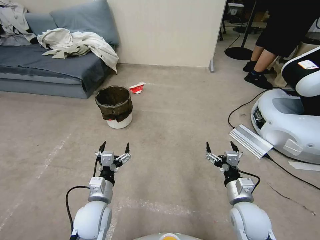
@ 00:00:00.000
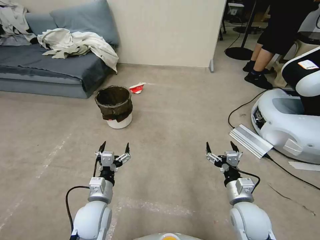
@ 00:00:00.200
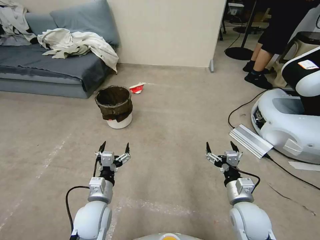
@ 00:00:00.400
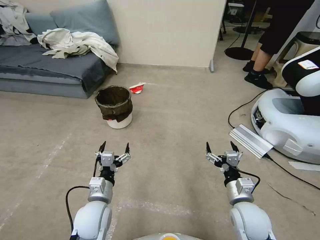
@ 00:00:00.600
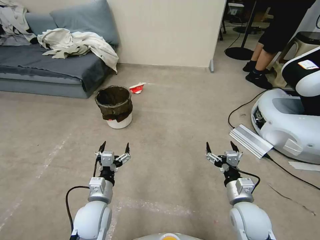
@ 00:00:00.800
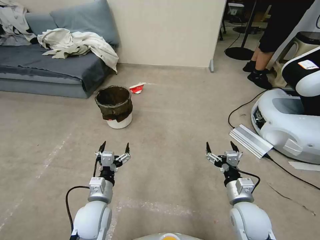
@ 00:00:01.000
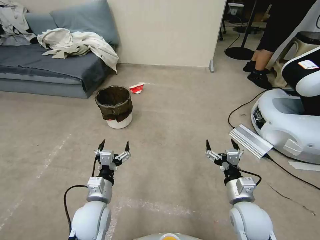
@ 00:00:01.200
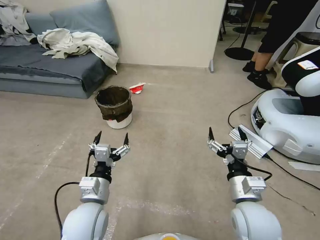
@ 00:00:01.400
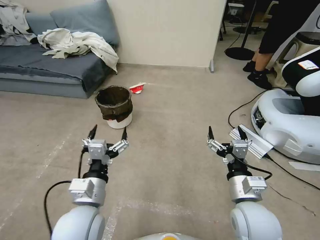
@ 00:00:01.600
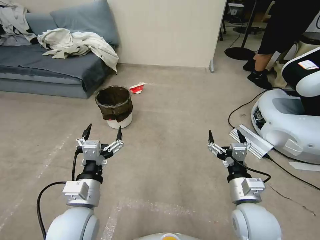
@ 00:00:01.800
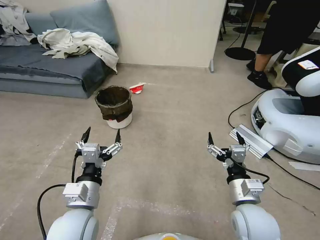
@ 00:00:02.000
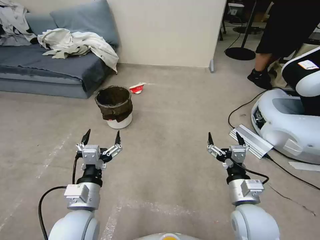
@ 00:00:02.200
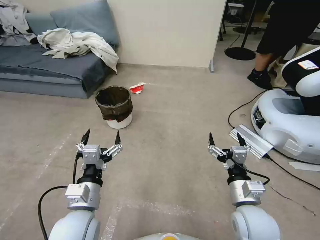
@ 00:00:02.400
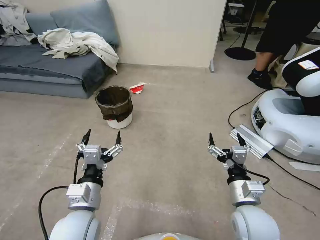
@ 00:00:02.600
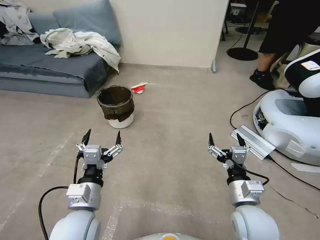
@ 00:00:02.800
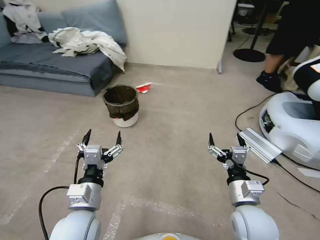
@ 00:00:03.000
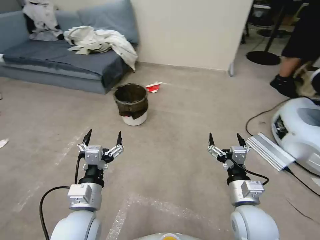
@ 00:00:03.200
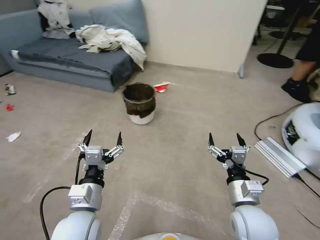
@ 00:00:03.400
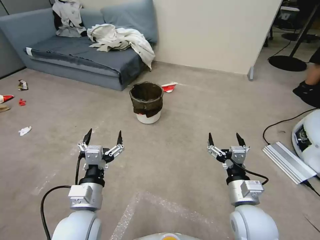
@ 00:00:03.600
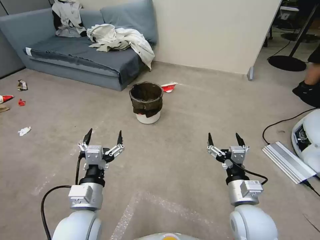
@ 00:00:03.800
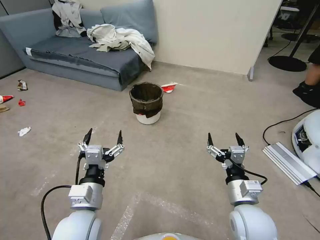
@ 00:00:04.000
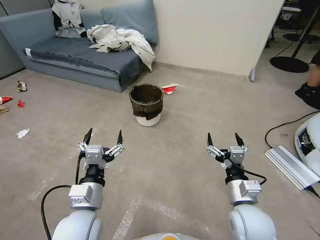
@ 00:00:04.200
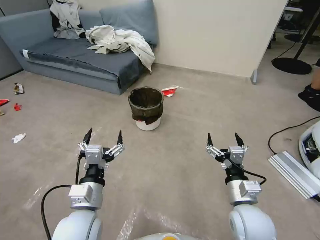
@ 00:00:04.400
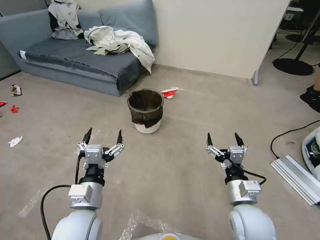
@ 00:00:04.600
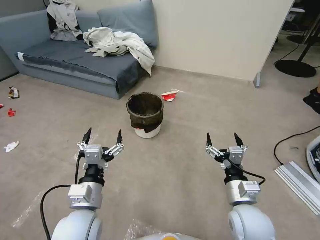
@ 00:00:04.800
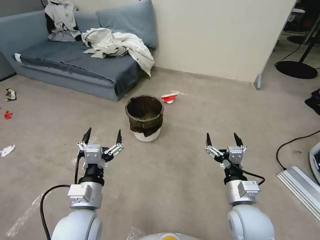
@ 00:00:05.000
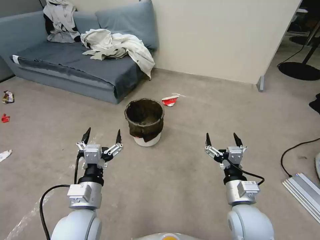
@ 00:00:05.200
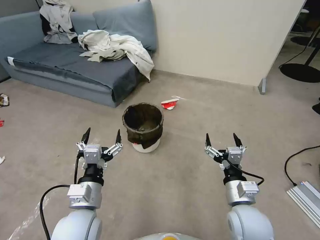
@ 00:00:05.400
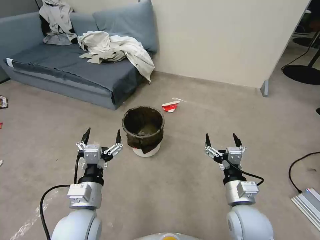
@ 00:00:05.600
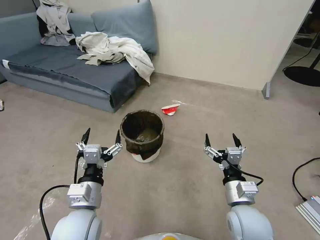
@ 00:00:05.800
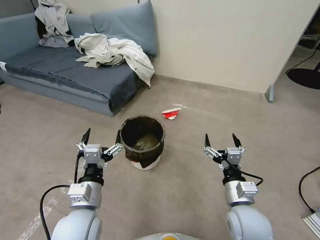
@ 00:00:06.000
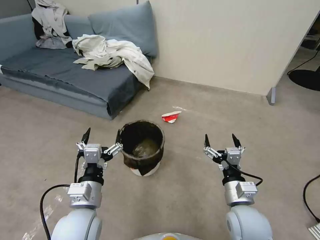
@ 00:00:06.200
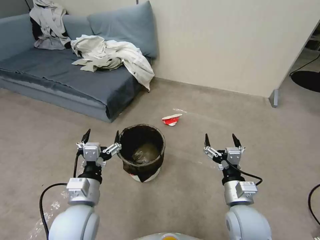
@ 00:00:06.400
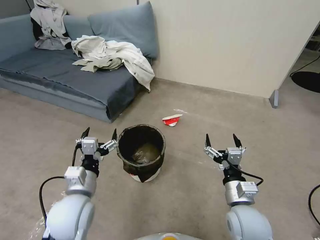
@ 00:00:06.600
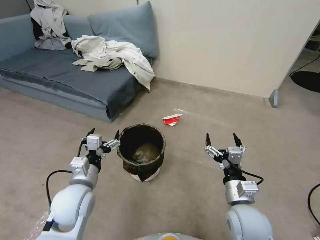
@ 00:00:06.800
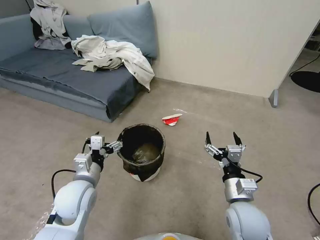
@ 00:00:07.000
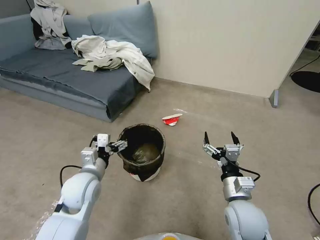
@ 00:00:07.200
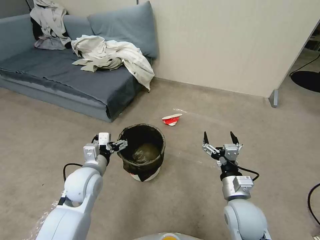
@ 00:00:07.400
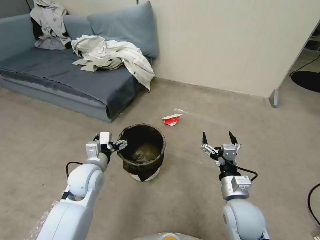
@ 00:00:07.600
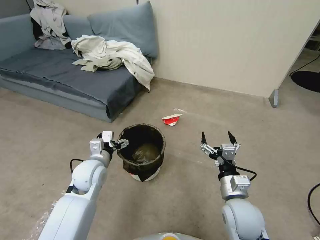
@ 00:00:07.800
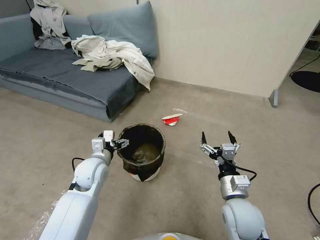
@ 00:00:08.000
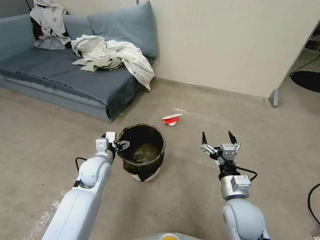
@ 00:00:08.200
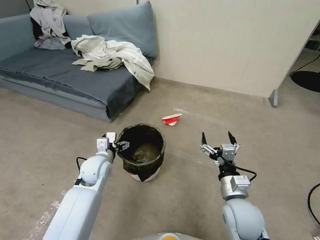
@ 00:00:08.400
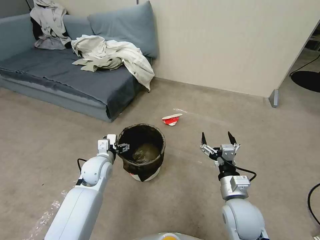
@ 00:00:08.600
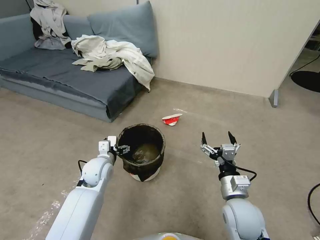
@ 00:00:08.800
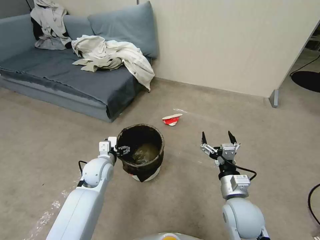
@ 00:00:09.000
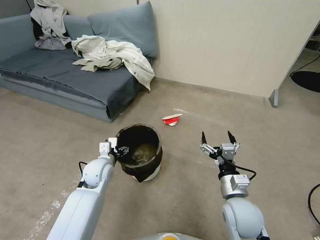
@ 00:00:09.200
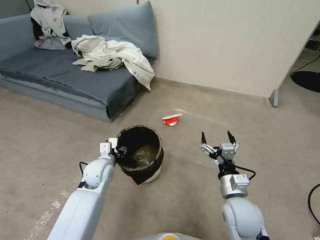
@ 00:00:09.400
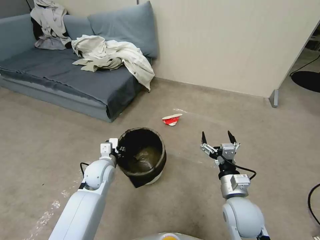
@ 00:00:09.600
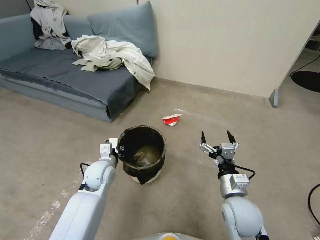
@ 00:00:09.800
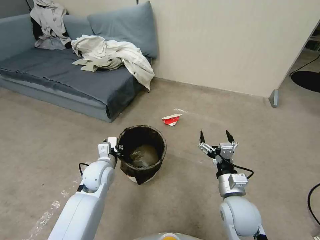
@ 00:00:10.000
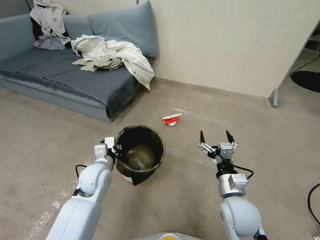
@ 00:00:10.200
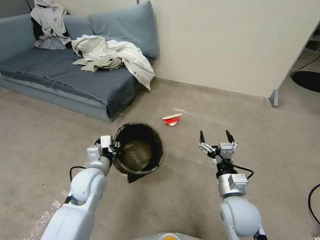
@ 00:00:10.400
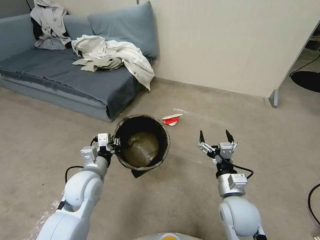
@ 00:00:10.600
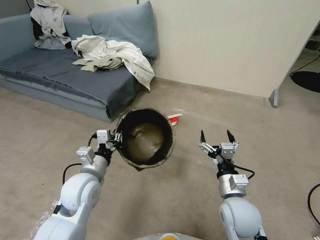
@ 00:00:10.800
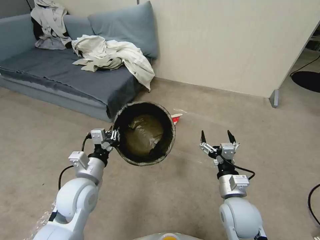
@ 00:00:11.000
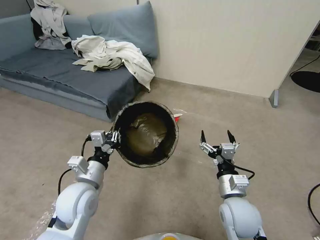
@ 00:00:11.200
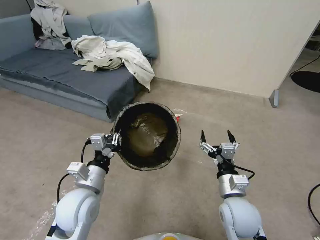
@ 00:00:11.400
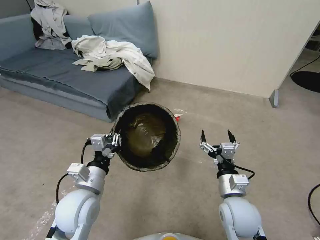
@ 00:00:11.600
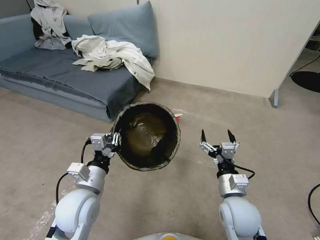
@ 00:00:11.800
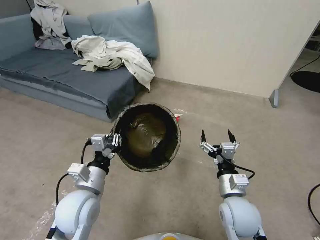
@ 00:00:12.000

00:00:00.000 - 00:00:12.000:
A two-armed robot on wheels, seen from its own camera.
Task of the whole recording: Pick up the trash can from the floor.
00:00:06.000 - 00:00:07.600: The left gripper travels forward by roughly 15 cm.
00:00:07.600 - 00:00:09.000: The left gripper goes roughly 5 cm downward.
00:00:09.000 - 00:00:10.400: The left gripper travels backward by some 5 cm, and closes up.
00:00:10.400 - 00:00:12.000: The left gripper is displaced backward by some 10 cm.
